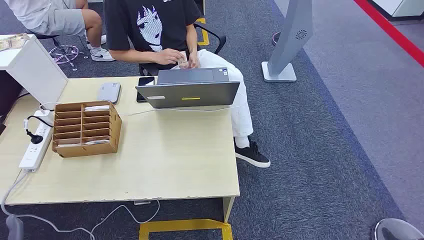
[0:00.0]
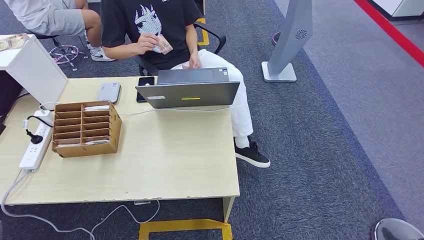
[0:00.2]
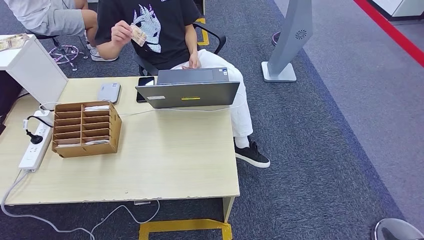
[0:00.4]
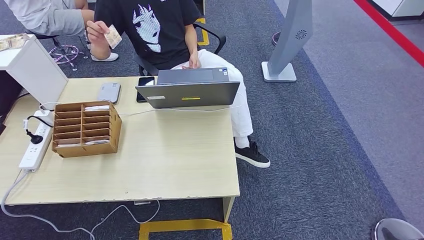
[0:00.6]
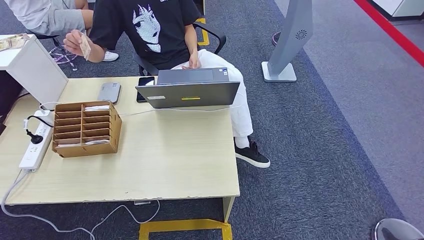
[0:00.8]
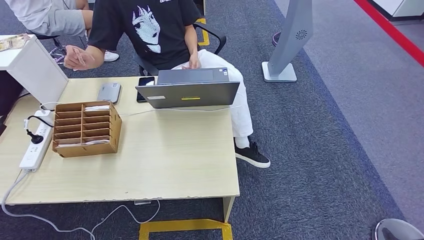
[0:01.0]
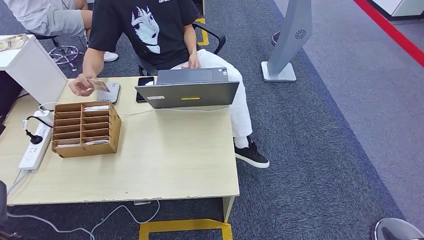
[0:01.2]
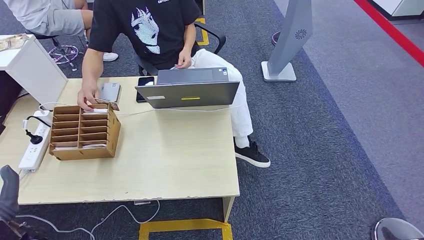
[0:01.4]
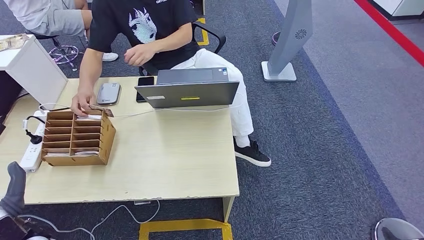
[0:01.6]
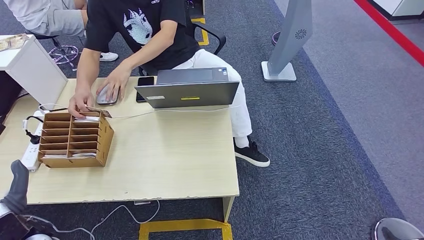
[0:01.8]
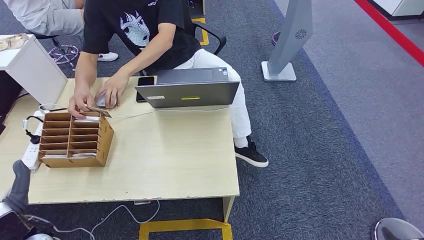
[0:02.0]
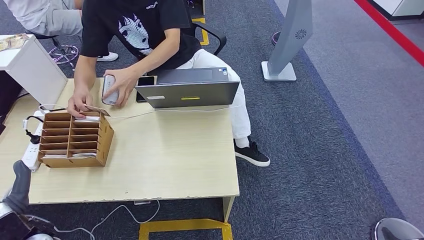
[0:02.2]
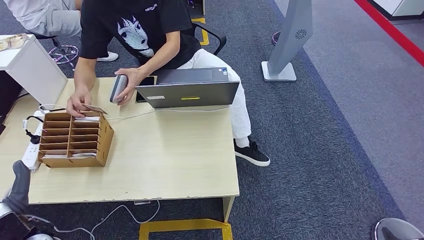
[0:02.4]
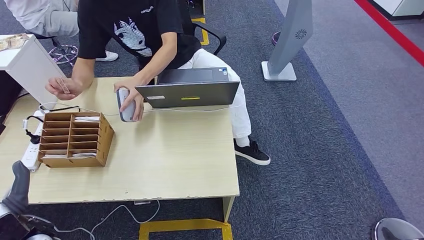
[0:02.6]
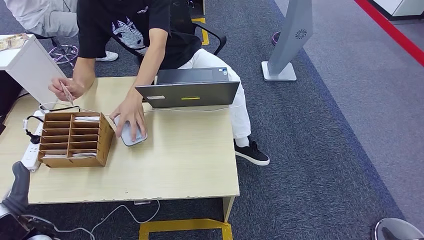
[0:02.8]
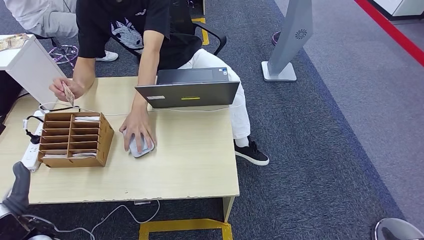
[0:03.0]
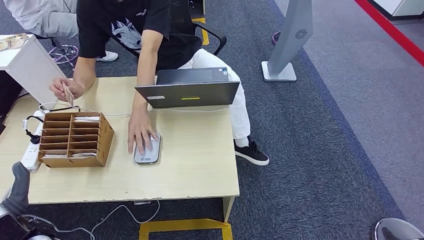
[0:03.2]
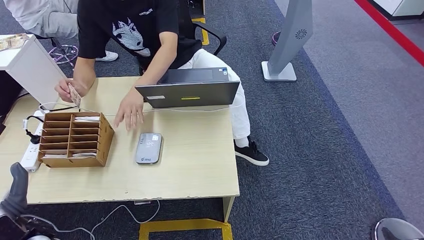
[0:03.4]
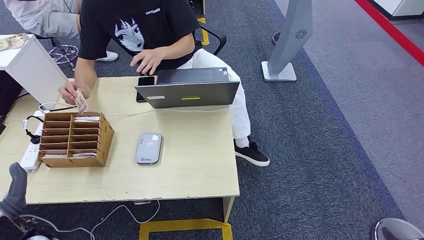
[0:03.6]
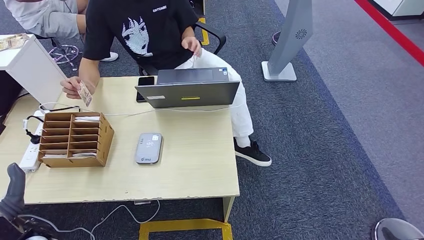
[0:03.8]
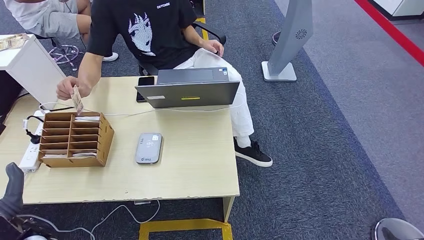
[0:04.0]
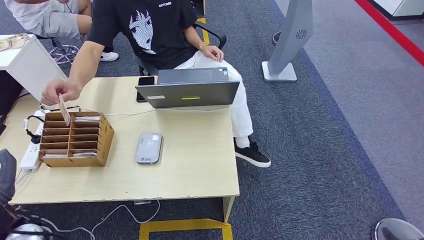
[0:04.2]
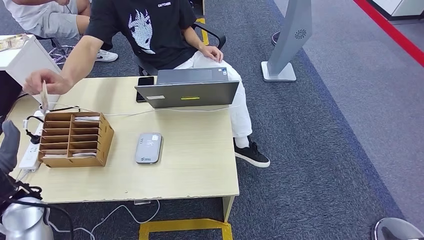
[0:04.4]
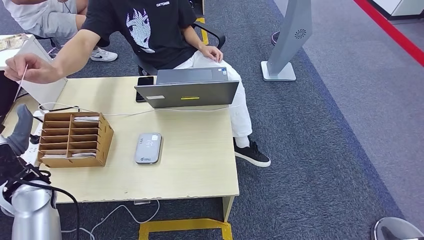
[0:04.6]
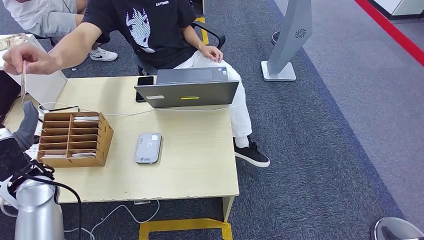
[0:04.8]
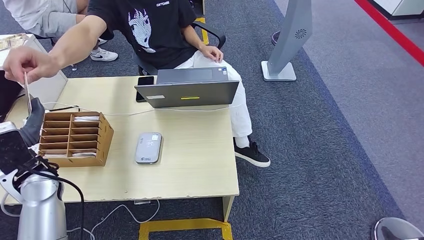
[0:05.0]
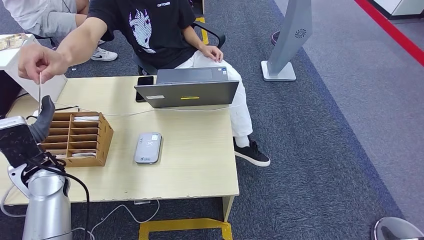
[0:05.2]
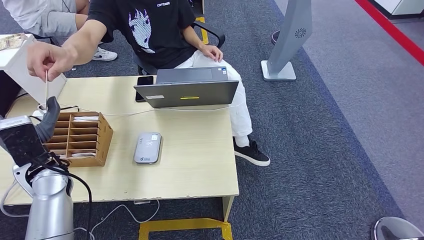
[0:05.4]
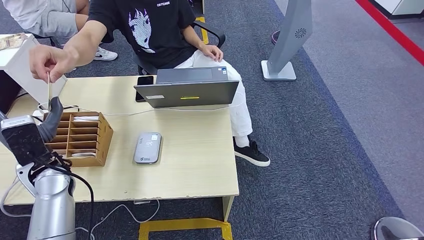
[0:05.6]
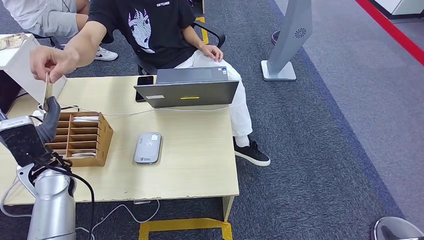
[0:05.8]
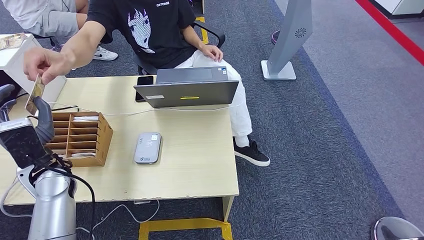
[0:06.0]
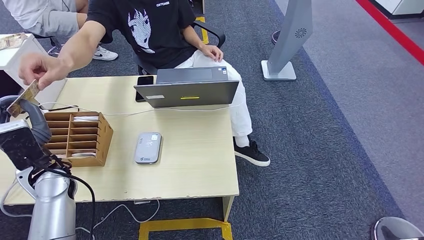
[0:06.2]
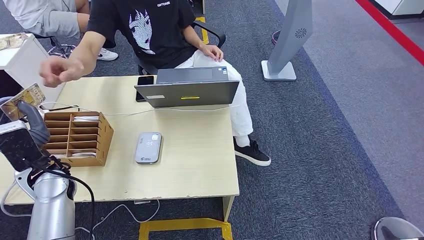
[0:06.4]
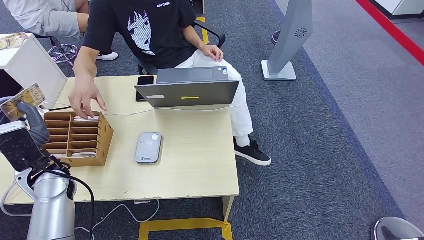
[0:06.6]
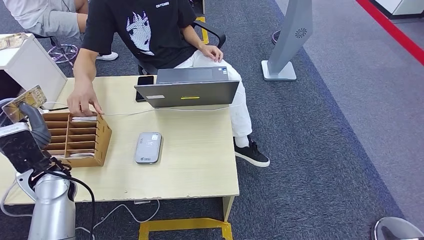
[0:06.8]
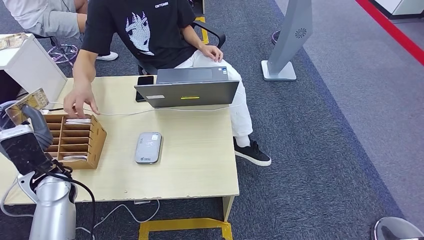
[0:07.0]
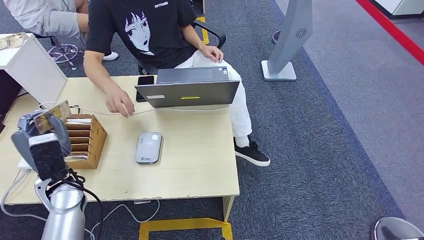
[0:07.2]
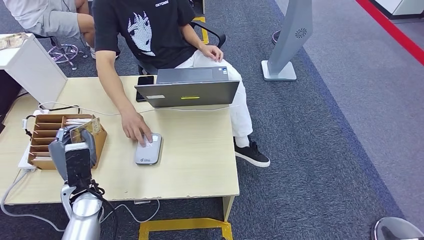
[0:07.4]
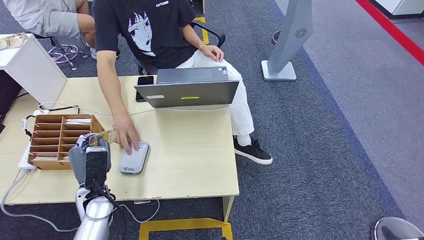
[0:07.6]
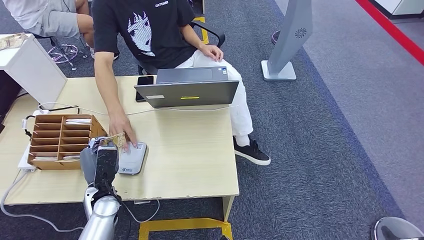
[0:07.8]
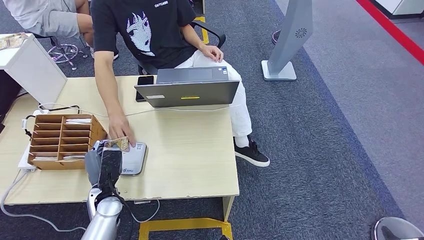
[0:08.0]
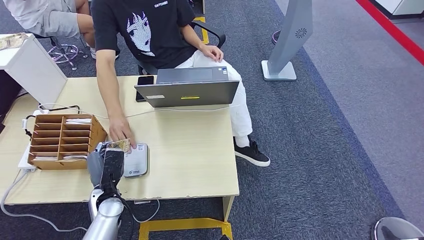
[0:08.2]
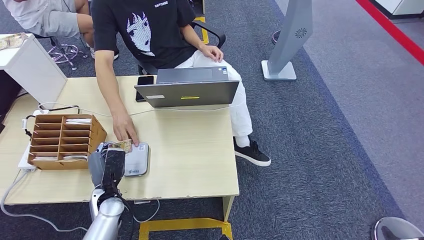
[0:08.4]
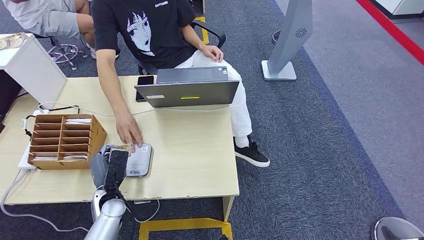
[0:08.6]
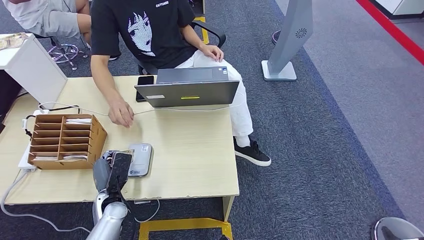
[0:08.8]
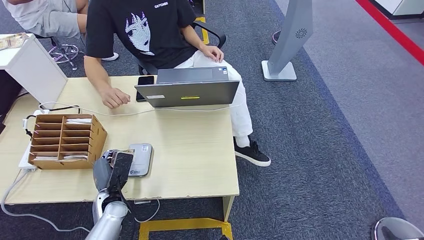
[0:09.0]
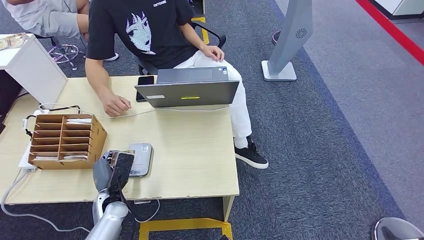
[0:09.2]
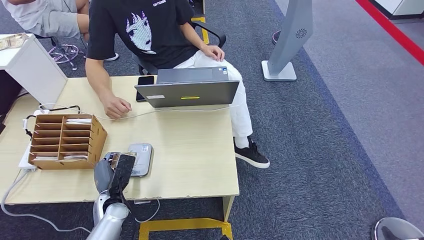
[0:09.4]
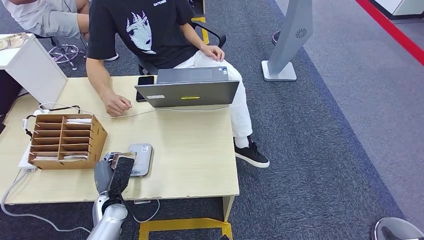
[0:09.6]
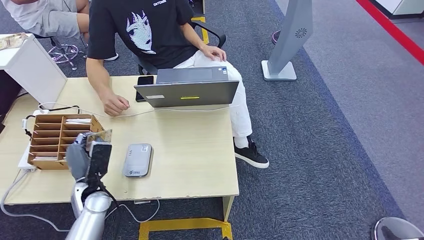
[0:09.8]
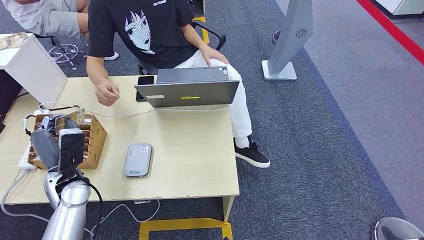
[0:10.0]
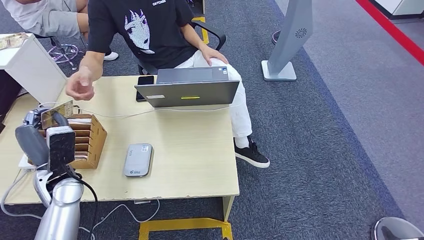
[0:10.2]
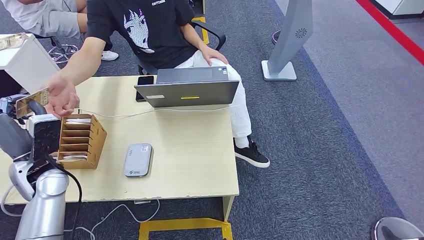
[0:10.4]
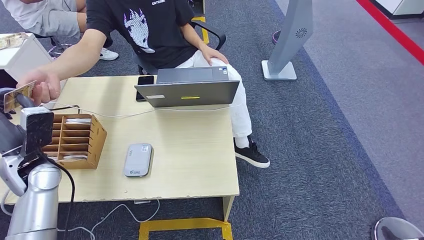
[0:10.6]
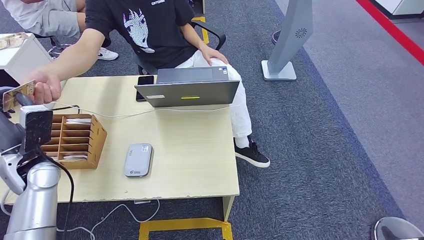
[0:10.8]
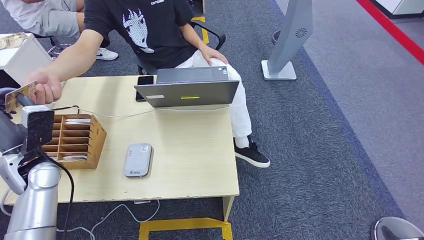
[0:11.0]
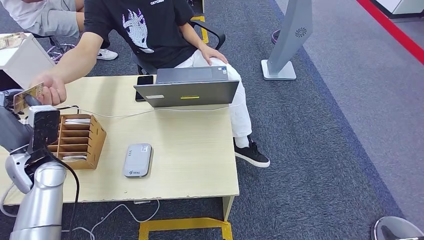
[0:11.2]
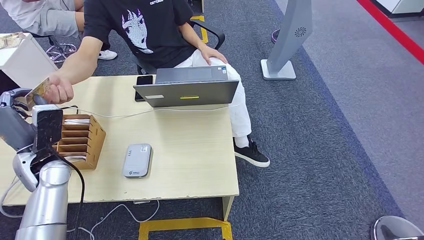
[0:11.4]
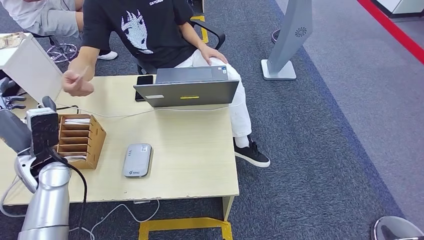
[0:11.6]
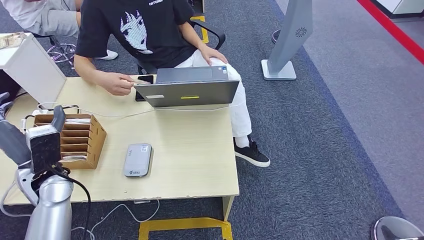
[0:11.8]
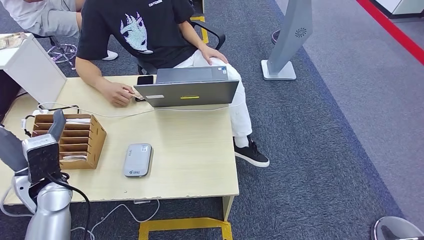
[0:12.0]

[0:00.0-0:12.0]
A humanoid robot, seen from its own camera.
Step, 0:00.0 to 0:06.8: Take the ID card from the person's hand.
Step, 0:07.0 to 0:08.8: Place the ID card on the card reader.
Step, 0:09.0 to 0:11.4: Hand the ID card to the person.
0:01.6 to 0:03.0: Neither hand changes place.
0:03.0 to 0:04.4: The left hand travels forward and upward by approximately 10 cm.
0:04.4 to 0:06.0: The left hand is displaced forward by about 5 cm.
0:06.0 to 0:07.6: The left hand is displaced downward and to the right by about 15 cm.
0:07.6 to 0:09.0: The left hand is displaced downward by some 5 cm.
0:09.0 to 0:10.4: The left hand shifts roughly 20 cm upward and to the left.
0:10.4 to 0:12.0: The hands stay close to where they were, moving slightly.

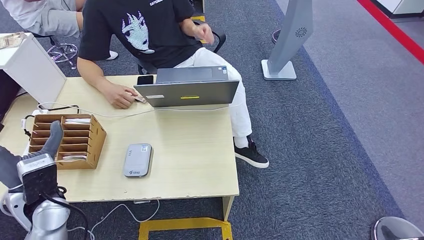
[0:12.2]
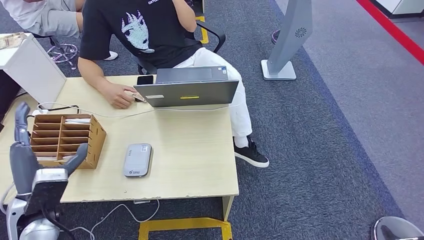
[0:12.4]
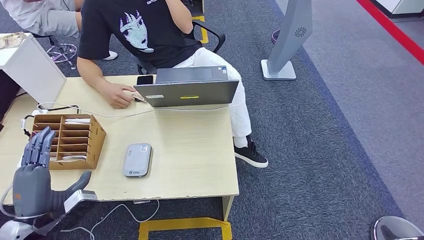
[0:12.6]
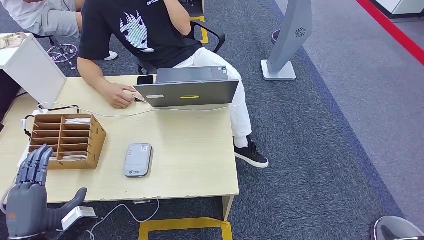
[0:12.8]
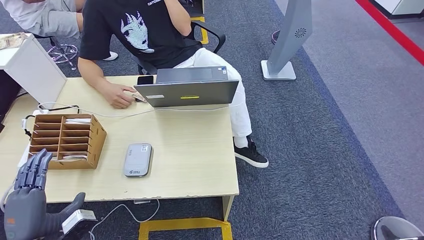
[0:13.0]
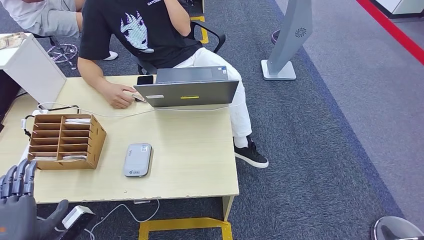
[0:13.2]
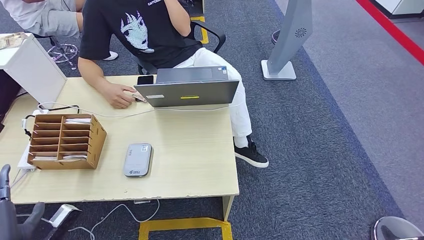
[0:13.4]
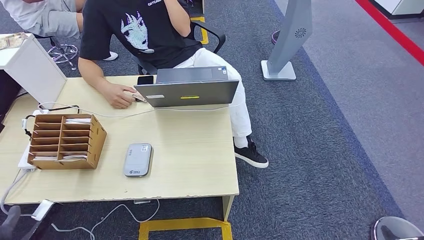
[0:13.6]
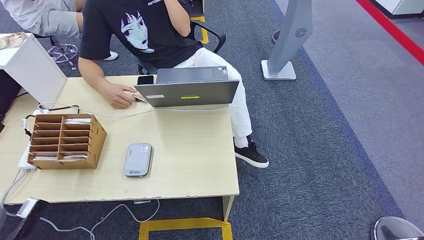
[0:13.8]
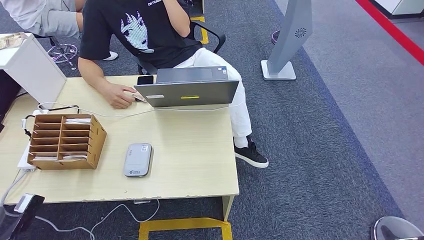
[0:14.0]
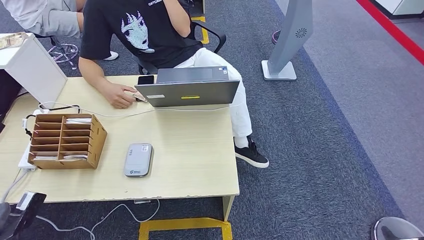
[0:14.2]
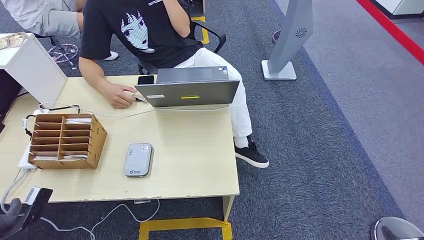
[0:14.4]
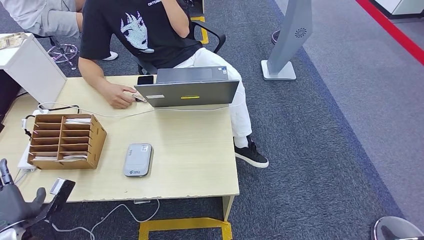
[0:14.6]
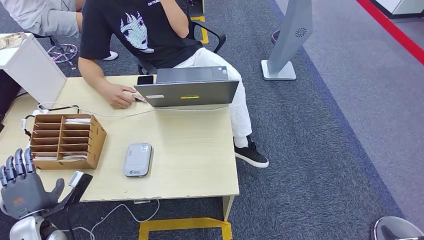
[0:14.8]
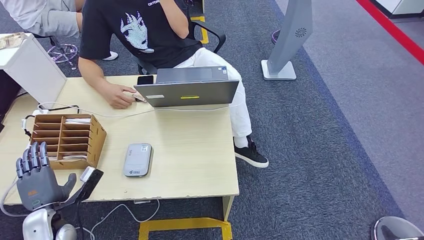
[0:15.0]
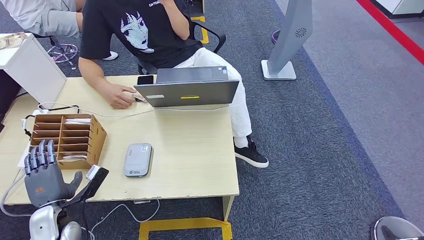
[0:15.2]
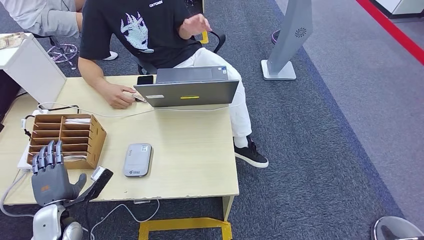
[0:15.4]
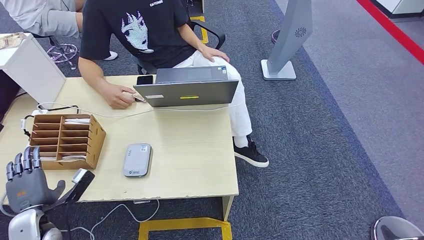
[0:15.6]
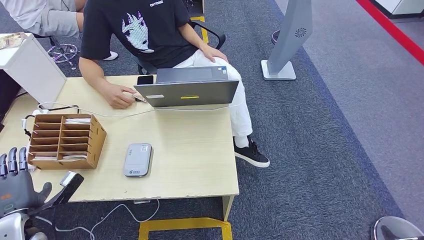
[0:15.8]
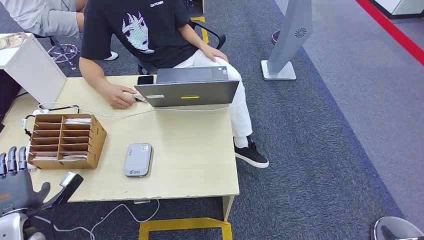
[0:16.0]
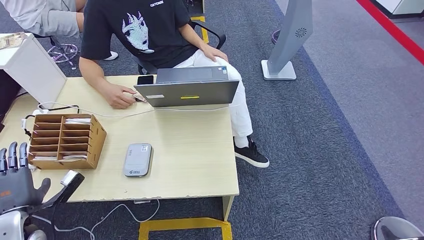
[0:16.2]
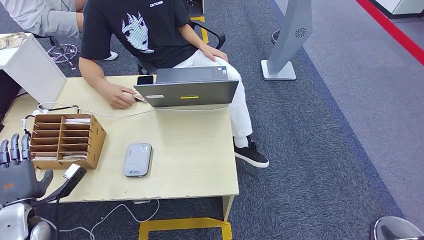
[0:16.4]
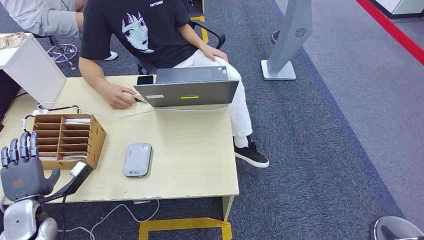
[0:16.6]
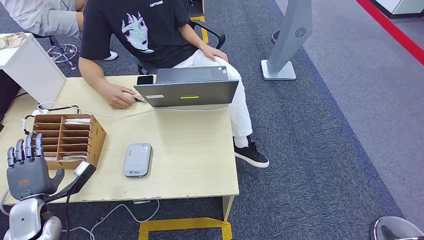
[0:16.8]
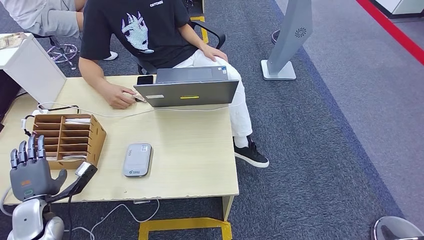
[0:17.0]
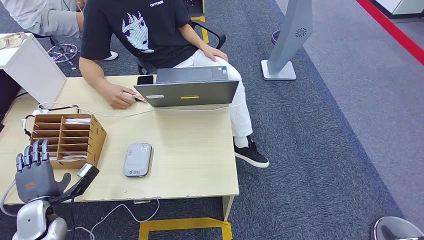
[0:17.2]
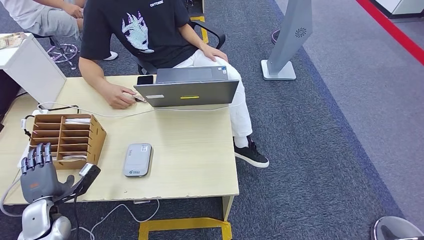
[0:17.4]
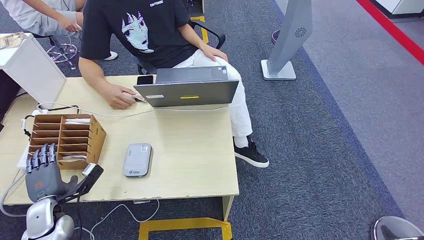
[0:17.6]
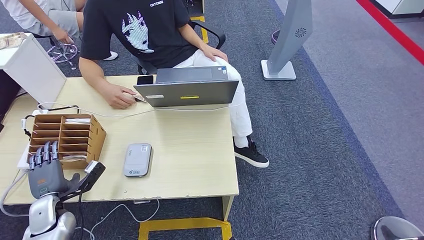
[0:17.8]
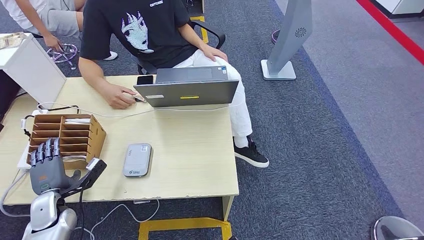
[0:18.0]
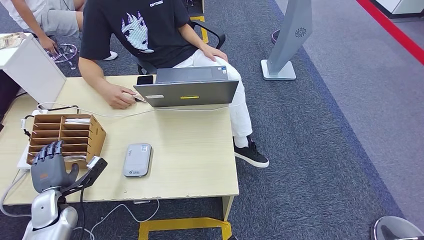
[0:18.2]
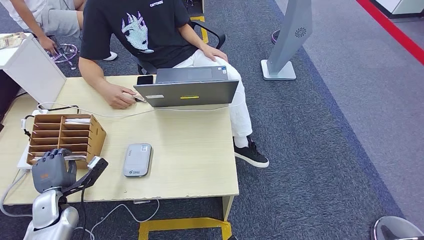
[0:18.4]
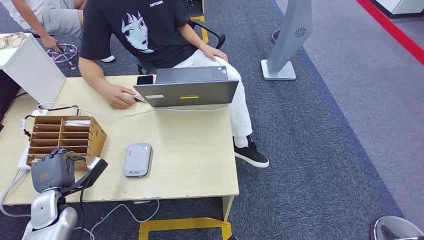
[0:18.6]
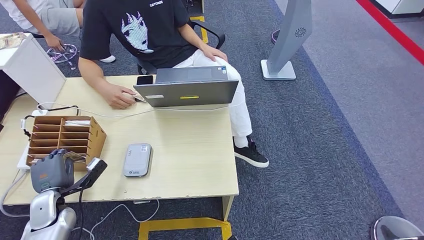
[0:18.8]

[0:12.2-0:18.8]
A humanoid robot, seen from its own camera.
0:12.2 to 0:13.8: The left hand is displaced to the left, backward and downward by some 20 cm.
0:13.8 to 0:15.4: The left hand moves forward, to the right and downward, roughly 15 cm.
0:17.2 to 0:18.8: The hands make only small movements.
